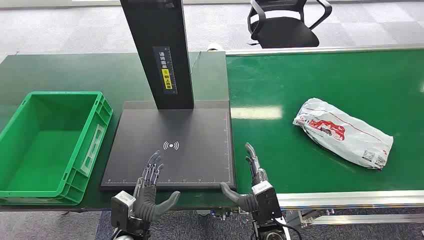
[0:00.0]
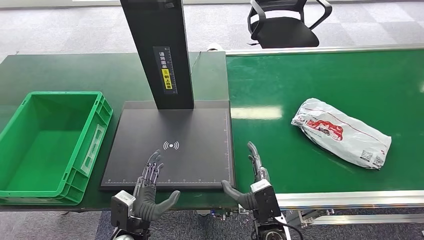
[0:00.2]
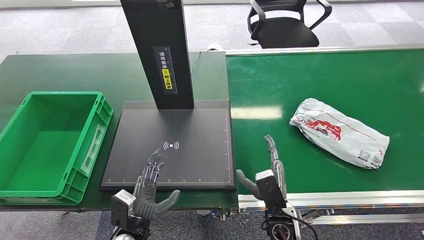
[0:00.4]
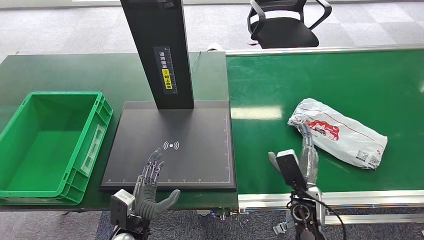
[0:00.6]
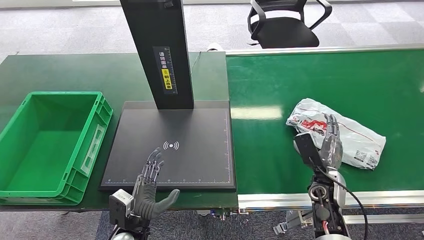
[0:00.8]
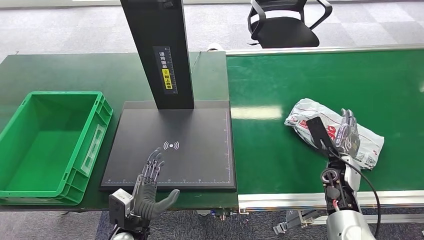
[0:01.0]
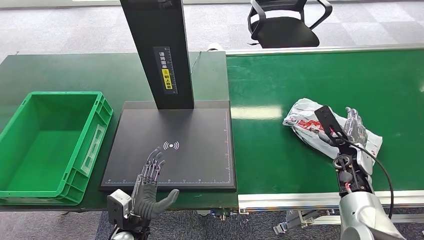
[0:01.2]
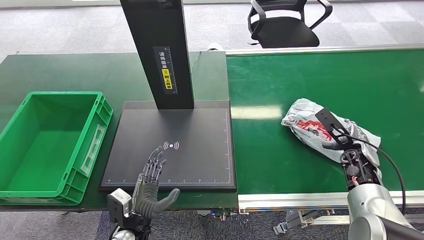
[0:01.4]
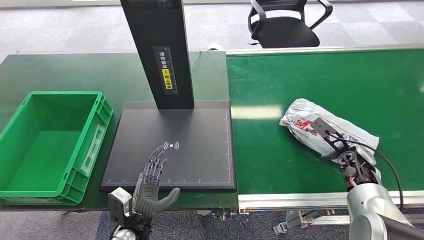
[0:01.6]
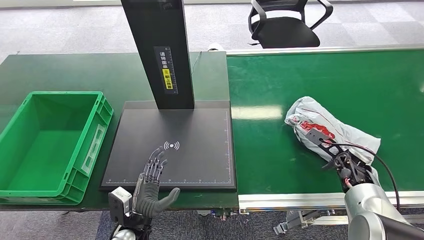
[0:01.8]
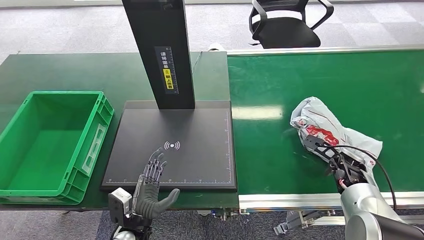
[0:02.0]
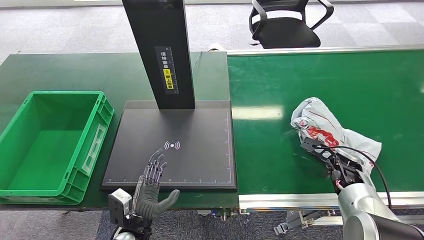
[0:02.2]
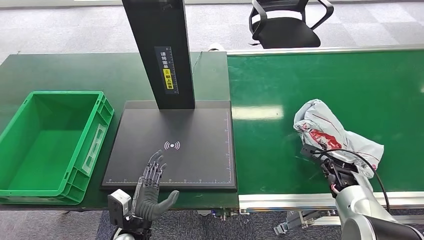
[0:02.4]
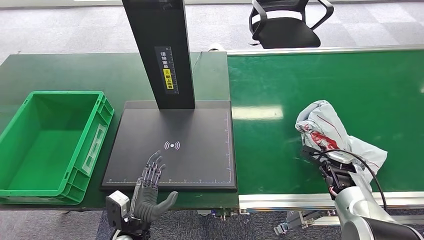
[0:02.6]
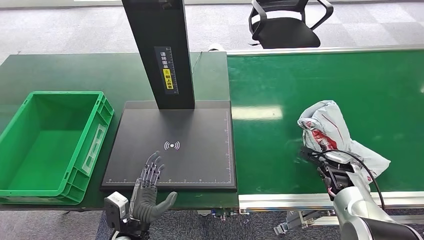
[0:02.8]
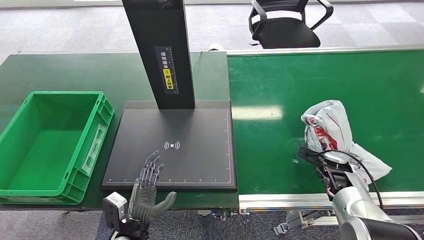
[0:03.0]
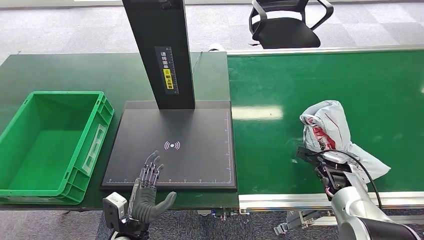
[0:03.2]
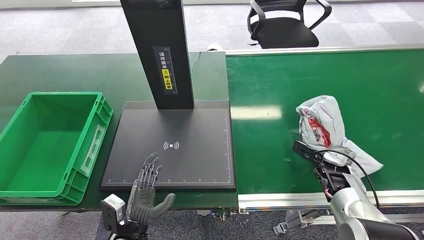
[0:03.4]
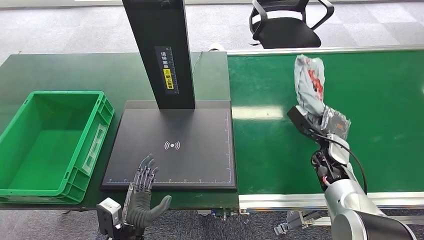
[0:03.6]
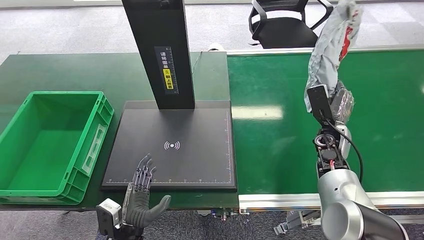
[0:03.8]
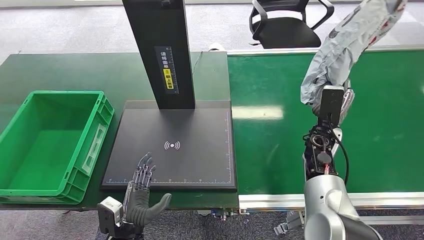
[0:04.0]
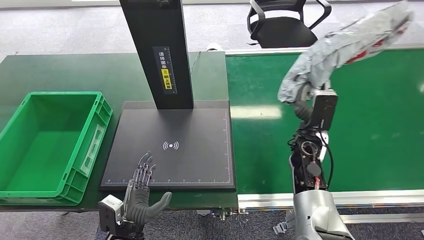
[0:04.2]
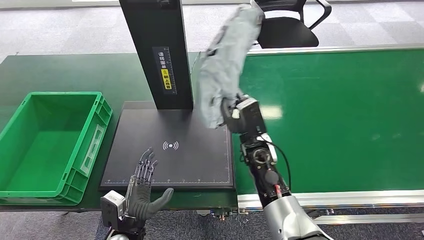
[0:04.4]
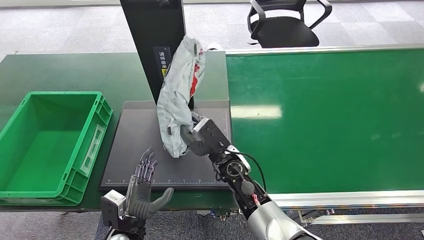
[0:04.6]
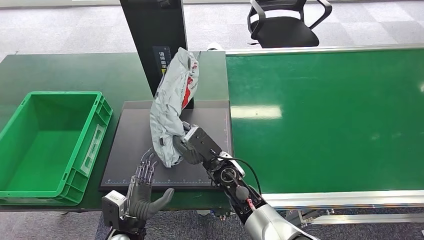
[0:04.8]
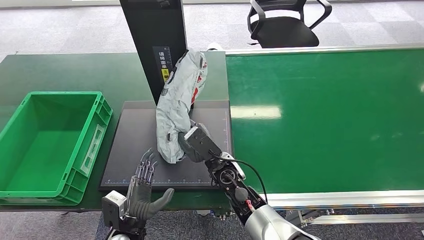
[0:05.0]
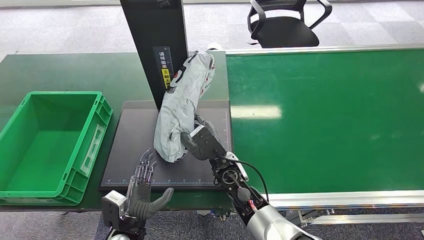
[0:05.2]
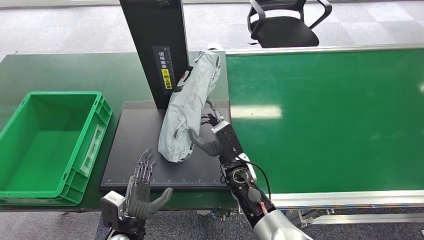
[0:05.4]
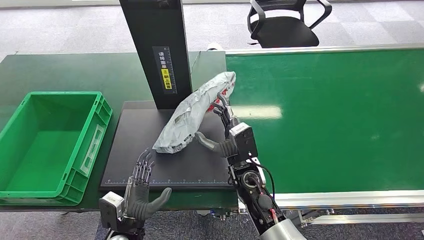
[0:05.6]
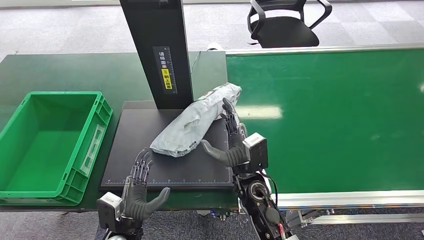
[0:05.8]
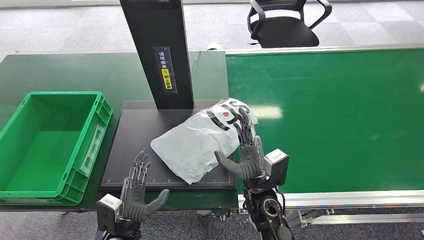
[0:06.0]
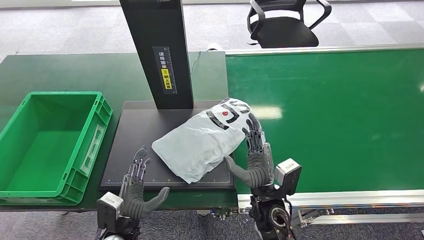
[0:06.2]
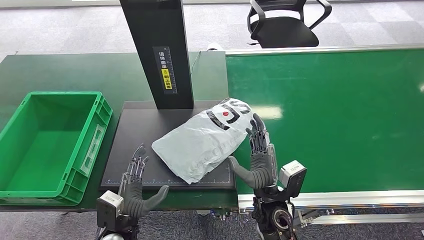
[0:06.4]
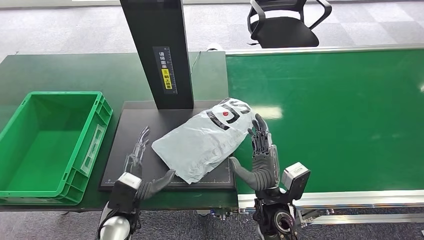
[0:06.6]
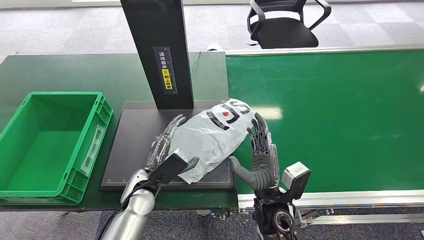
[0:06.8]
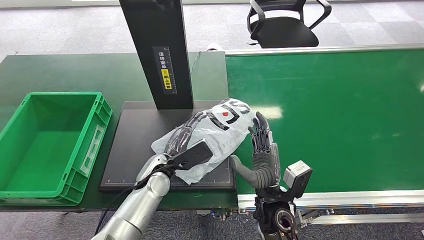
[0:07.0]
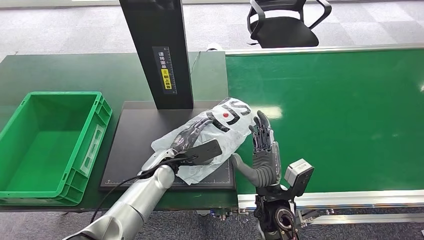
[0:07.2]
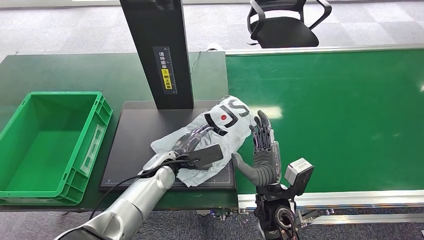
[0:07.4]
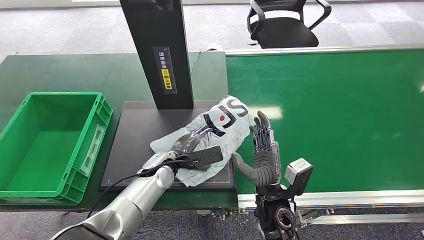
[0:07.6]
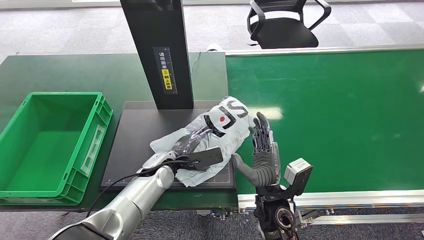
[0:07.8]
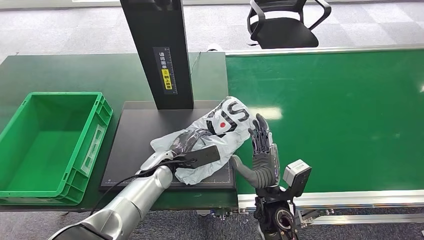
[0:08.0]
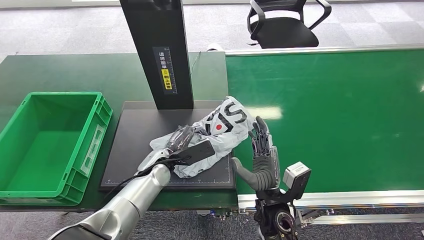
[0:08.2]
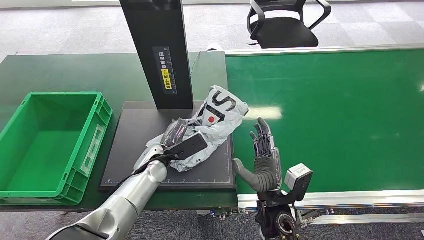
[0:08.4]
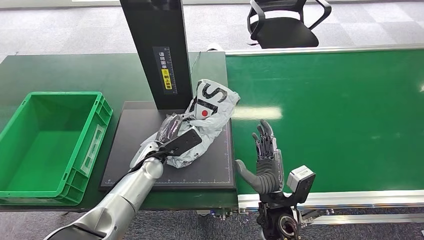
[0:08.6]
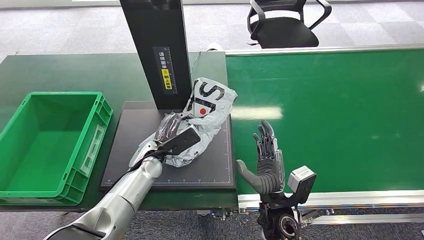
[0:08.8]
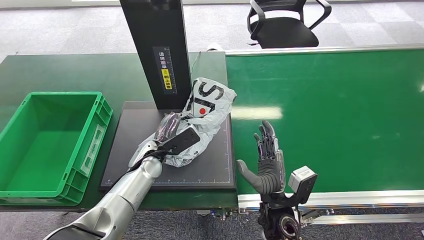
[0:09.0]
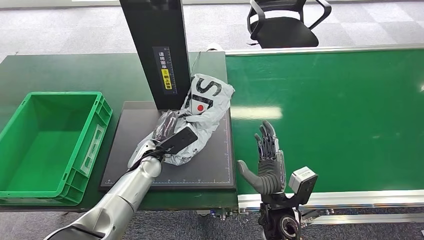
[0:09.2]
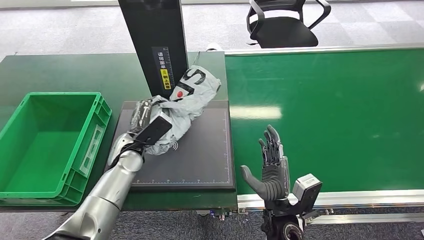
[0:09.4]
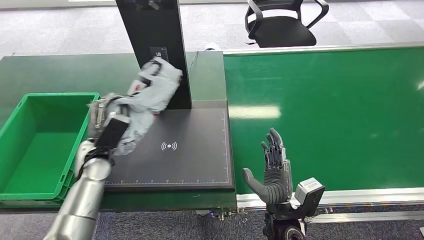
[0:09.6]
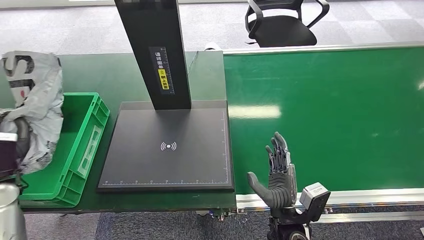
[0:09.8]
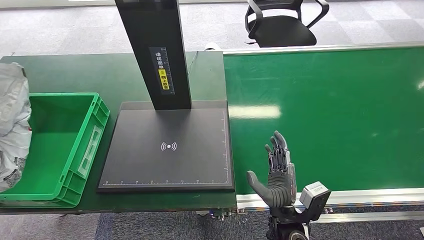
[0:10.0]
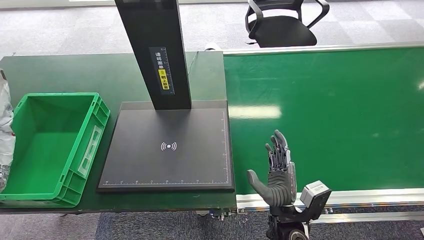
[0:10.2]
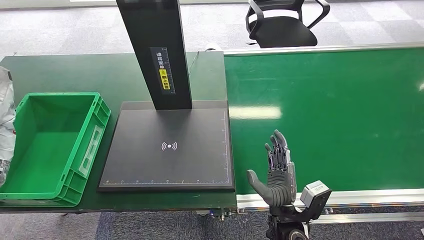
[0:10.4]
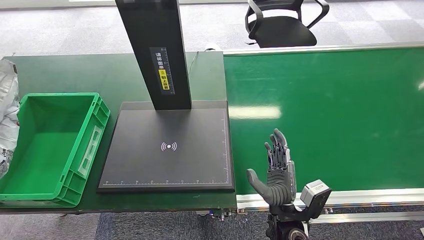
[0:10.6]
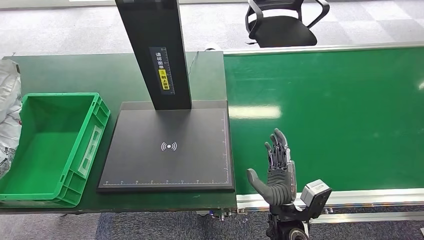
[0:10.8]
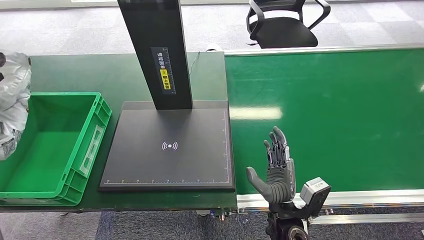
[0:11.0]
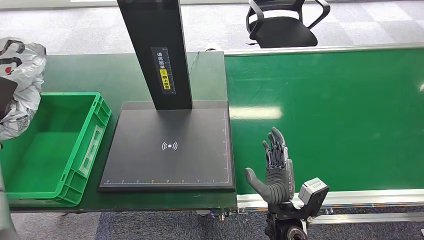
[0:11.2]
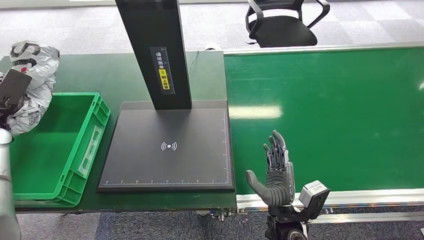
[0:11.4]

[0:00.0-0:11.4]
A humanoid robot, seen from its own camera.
Step, 0:00.0 to 0:04.0: Pick up the package from the conveyor belt.
Step, 0:04.2 to 0:06.4: Place the package onto the inbound machine.
Step, 0:06.6 to 0:09.6: Pick up the package from the inbound machine.
0:01.4 to 0:02.8: The right hand ends up some 5 cm from where it was.
0:04.2 to 0:05.6: The right hand moves to the left and backward, about 15 cm.
0:05.6 to 0:07.2: The right hand moves backward, about 10 cm; the left hand goes about 20 cm forward and upward.
0:07.2 to 0:08.6: The hands make only small movements.
0:10.0 to 0:11.4: The left hand travels forward and upward by some 15 cm.

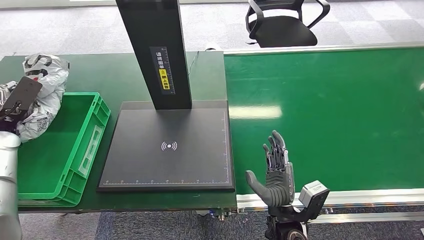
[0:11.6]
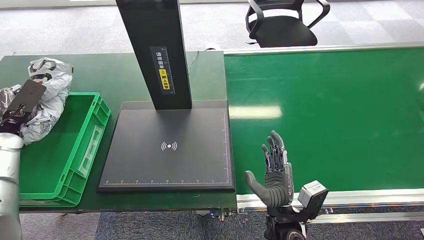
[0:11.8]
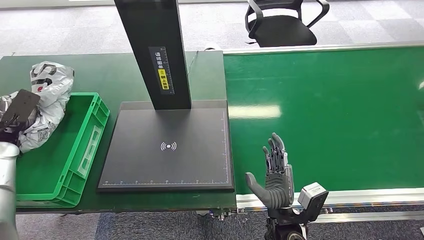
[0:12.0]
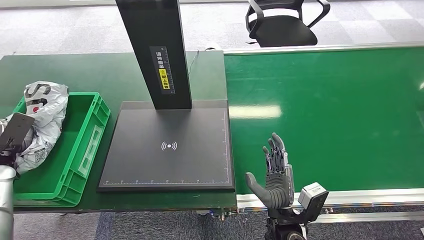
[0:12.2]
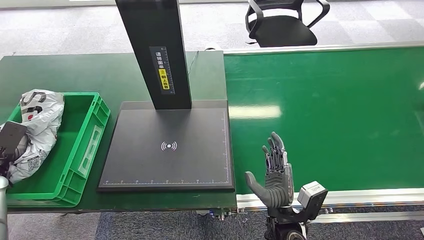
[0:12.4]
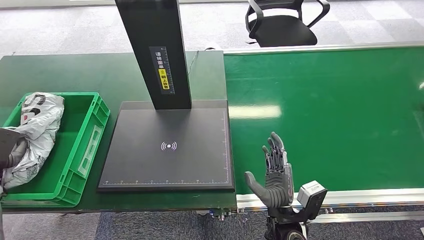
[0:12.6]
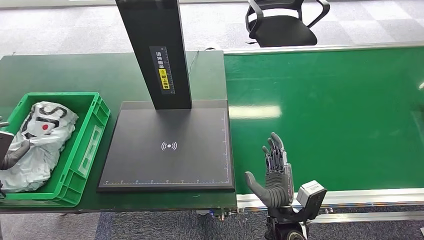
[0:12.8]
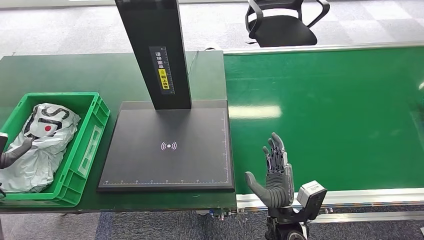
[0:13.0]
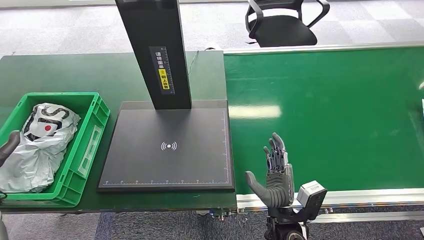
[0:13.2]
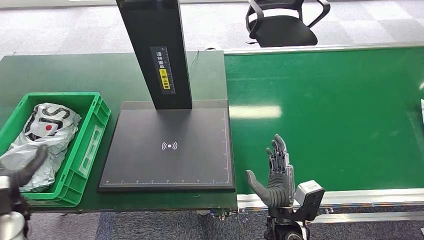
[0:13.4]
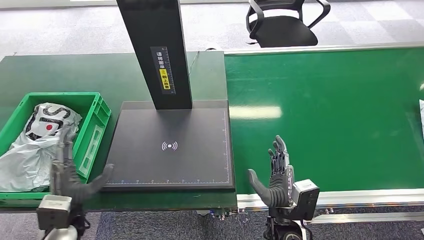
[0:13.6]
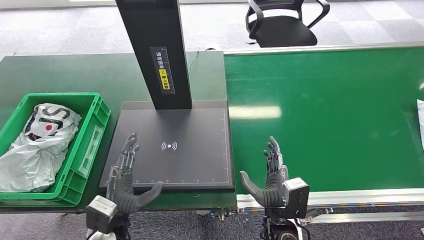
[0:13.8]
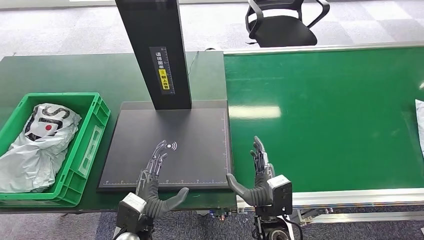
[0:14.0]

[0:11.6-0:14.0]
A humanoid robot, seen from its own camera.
Step, 0:11.6 to 0:14.0: Place the package into the parcel locker.
0:11.6 to 0:12.8: The left hand moves backward and downward, about 15 cm.
0:12.8 to 0:14.0: The left hand travels to the right by about 40 cm.
